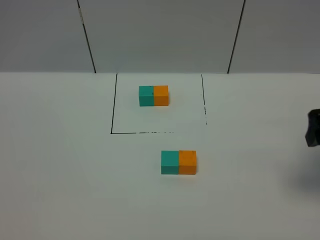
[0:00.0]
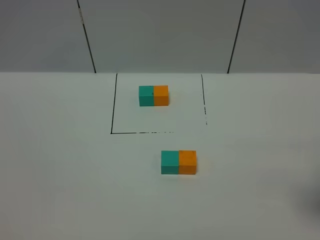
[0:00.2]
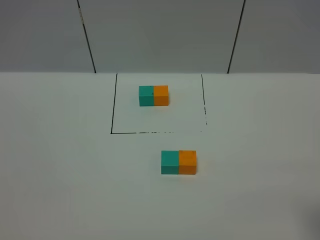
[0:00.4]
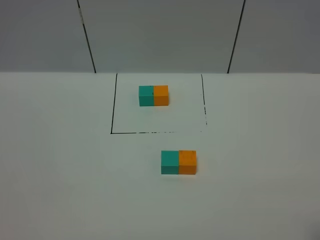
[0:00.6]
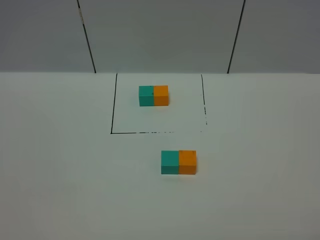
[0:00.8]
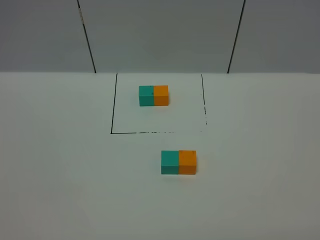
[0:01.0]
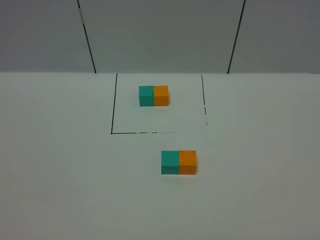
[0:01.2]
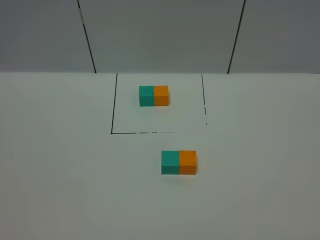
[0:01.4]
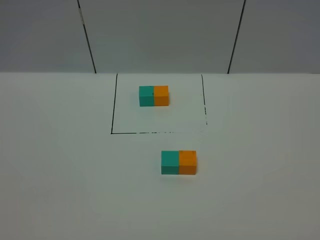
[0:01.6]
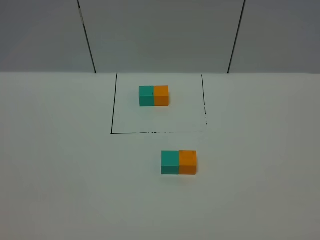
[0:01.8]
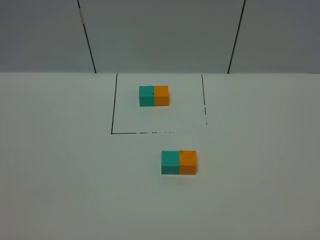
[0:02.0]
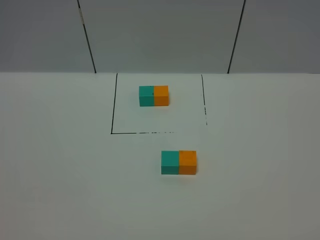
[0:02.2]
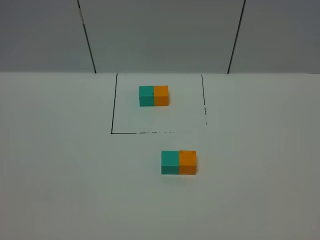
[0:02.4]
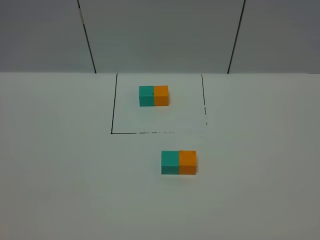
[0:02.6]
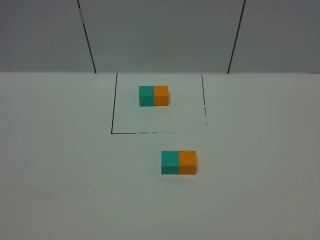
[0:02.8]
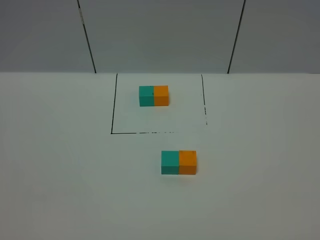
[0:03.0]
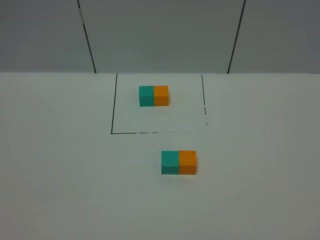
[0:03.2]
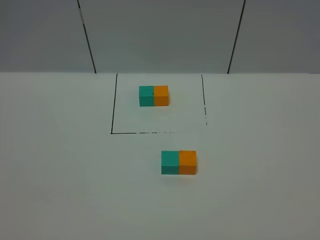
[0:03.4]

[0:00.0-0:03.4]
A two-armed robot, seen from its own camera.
Task of the whole recording: According to the building block template in front, assemble the scattered blocks together.
0:00.0 to 0:01.6: The right gripper goes approximately 25 cm backward.
0:01.6 to 0:03.4: Both grippers stay about where they are.

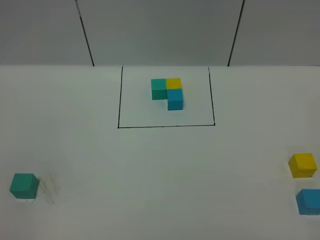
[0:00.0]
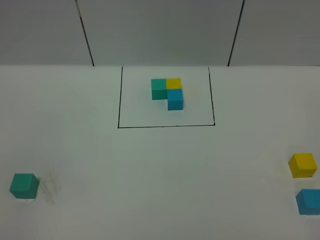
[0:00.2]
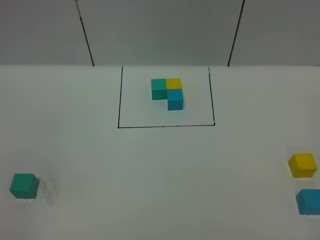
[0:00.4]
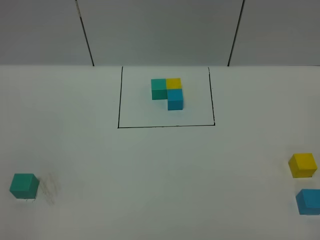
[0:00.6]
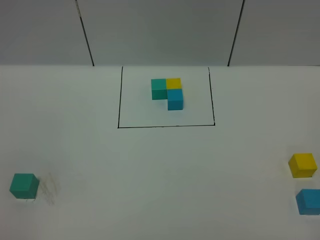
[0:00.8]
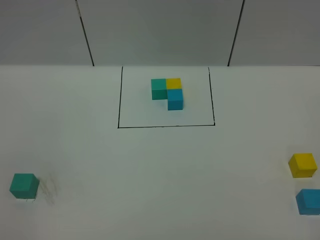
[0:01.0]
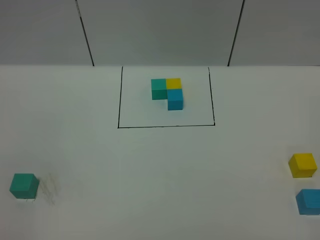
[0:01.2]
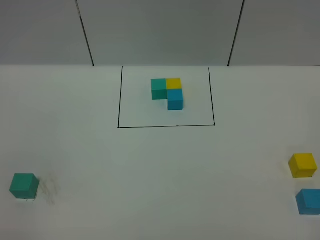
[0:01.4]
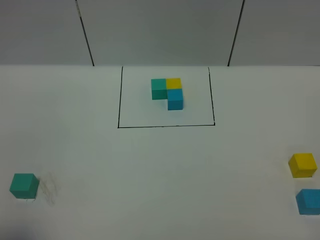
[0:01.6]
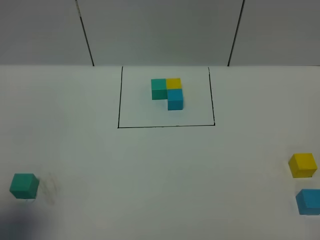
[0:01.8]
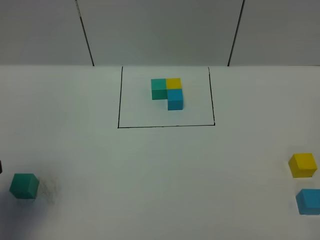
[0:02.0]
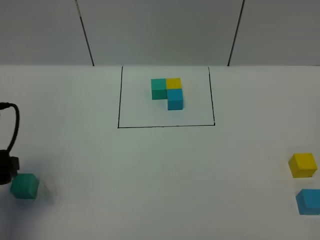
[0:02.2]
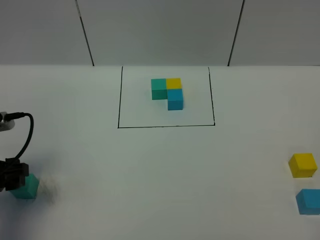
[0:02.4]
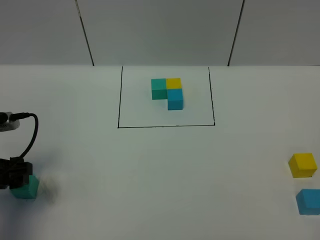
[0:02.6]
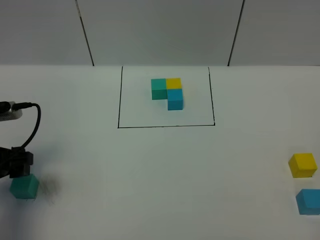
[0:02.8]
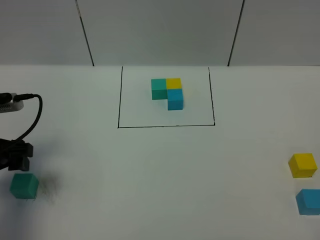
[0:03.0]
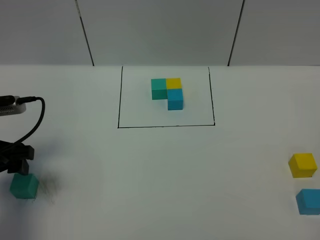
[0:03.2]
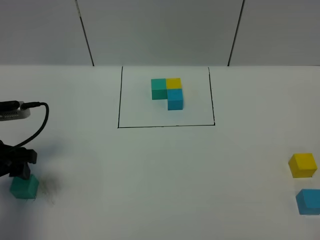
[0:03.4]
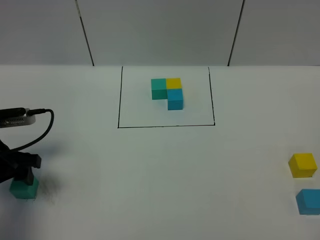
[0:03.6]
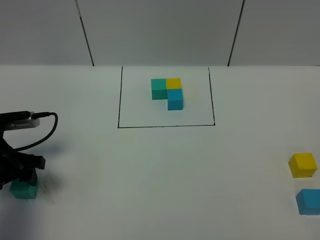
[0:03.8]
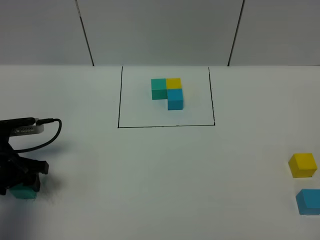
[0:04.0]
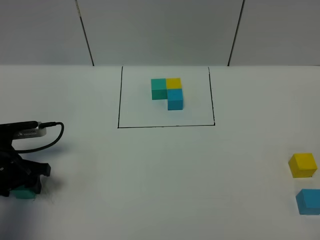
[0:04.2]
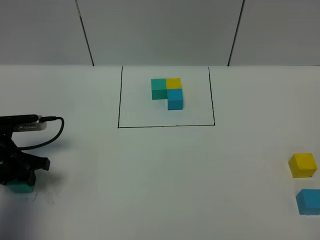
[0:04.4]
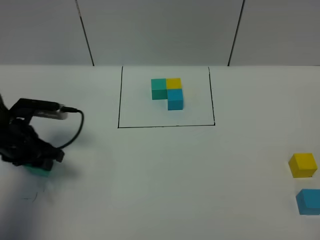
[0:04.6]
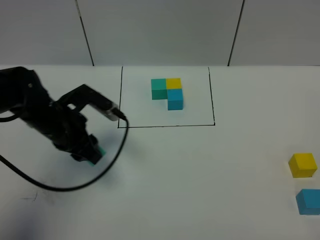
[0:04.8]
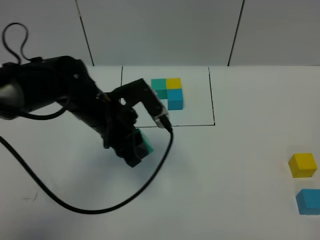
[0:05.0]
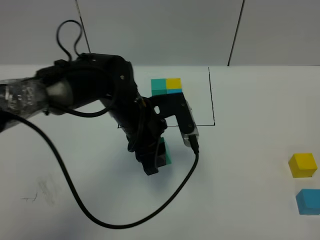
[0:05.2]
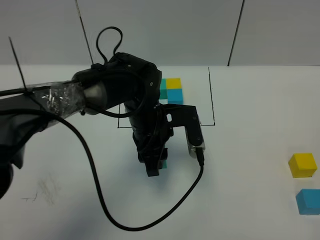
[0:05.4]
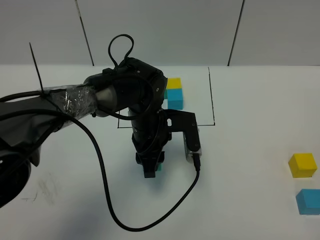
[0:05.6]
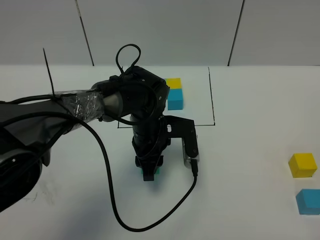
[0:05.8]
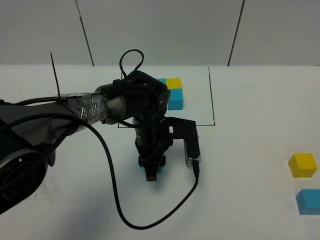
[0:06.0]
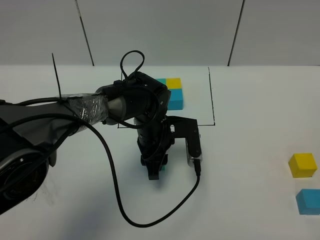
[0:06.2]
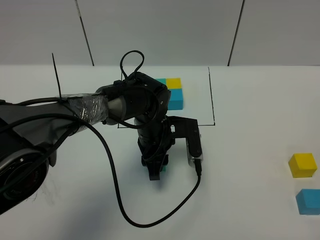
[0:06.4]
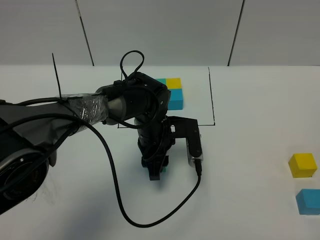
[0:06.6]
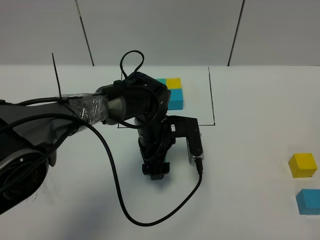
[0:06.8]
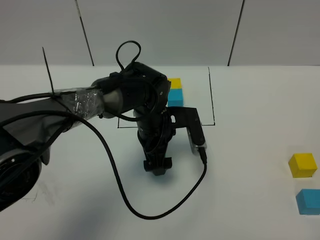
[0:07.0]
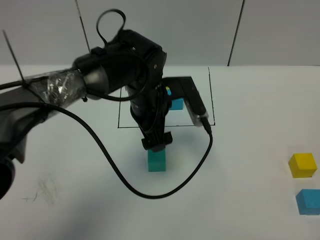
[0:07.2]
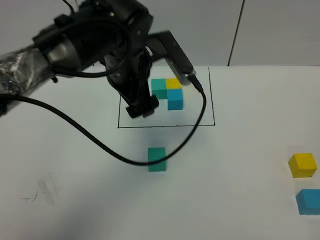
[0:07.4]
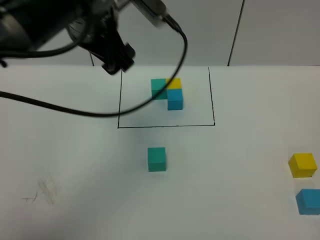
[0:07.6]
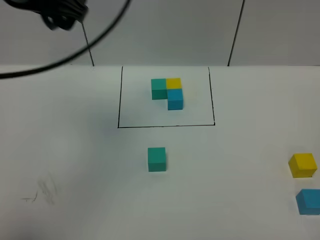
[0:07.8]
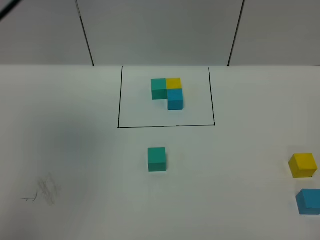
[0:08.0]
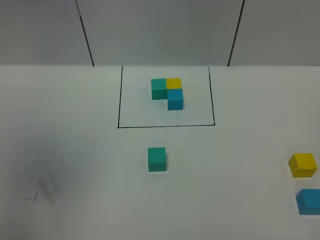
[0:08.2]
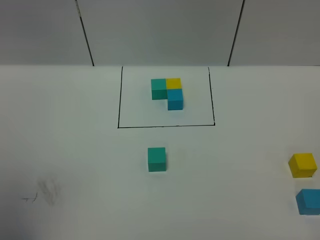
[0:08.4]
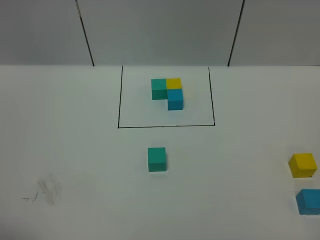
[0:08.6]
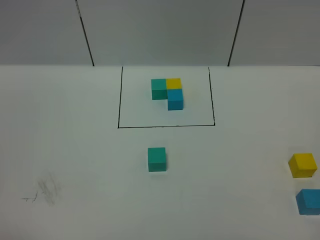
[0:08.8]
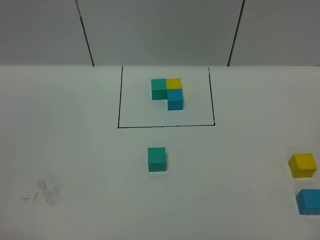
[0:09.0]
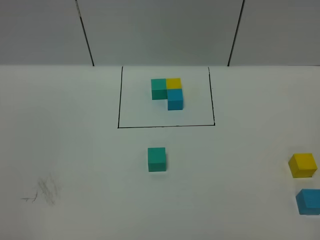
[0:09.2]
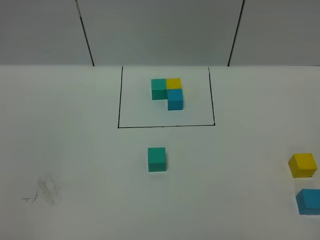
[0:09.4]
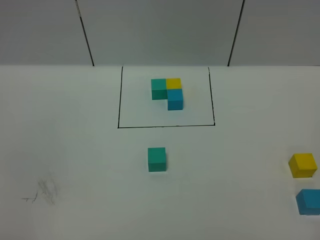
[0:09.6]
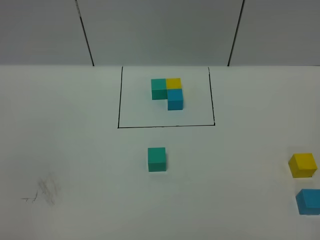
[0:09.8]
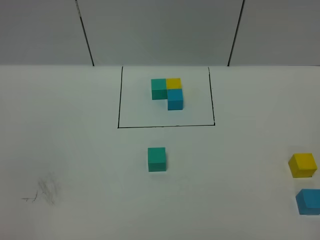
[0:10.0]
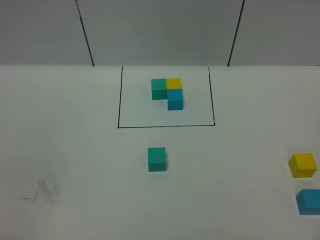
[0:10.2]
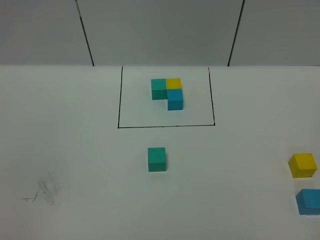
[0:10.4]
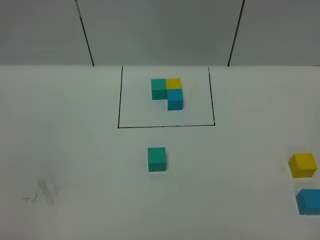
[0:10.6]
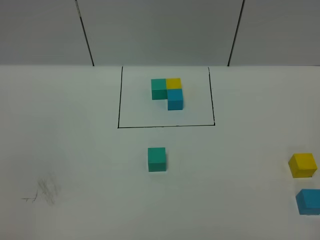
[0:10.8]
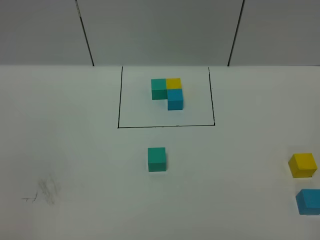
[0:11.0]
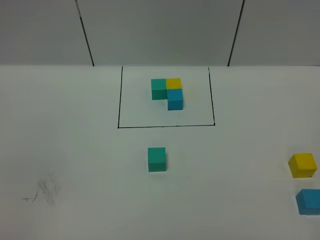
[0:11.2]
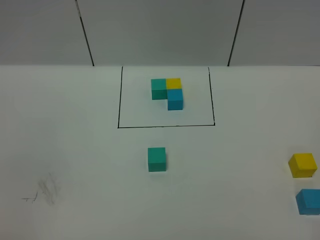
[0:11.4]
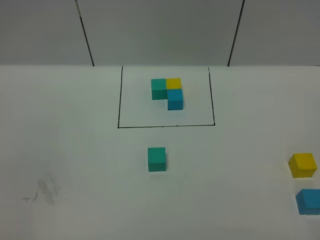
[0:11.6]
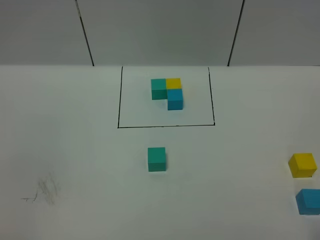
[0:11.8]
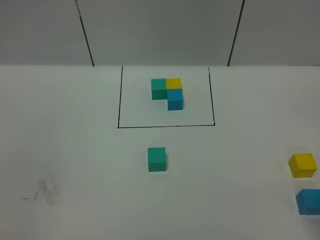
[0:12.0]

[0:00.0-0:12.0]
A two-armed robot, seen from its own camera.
Task of the whole recording: According to the building block template in front, assemble the scattered blocks together.
Step, 0:02.0 to 0:07.0: Put the green cube in the center of the table.
0:01.6 to 0:03.0: The left gripper shifts roughly 20 cm forward and downward.
0:03.0 to 0:04.4: The left gripper goes roughly 10 cm downward, and closes its fingers.
0:04.4 to 0:06.0: The left gripper moves to the right, about 30 cm.
0:06.0 to 0:07.6: The left gripper travels upward by some 25 cm, and opens up.
0:07.6 to 0:09.0: The left gripper moves backward and to the left, some 50 cm, and closes up.

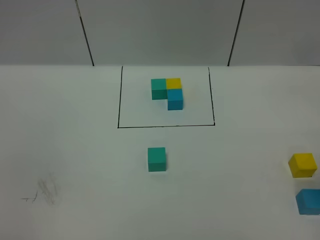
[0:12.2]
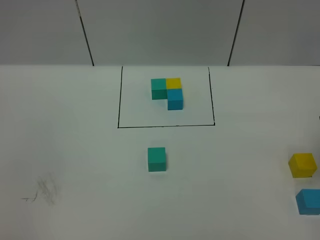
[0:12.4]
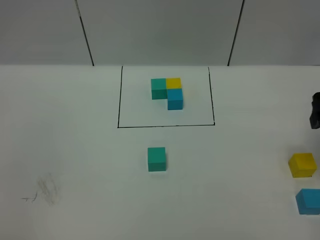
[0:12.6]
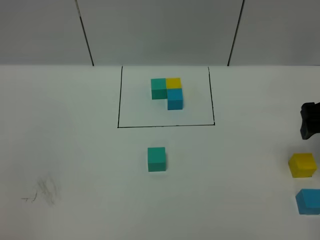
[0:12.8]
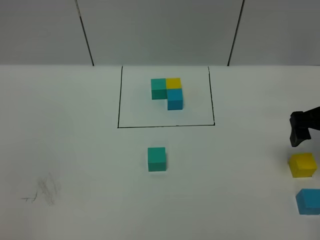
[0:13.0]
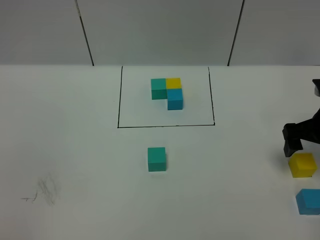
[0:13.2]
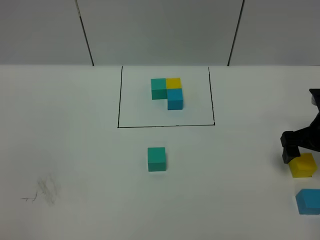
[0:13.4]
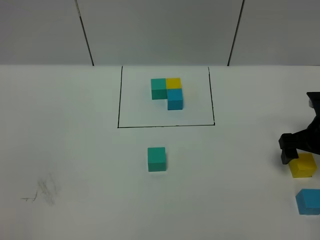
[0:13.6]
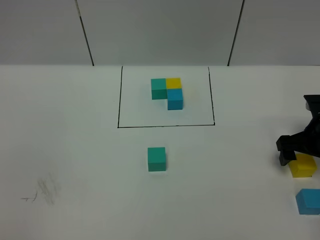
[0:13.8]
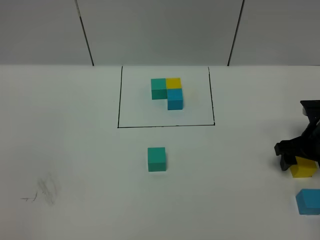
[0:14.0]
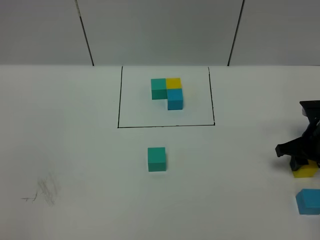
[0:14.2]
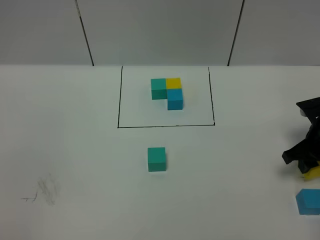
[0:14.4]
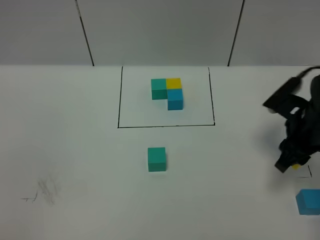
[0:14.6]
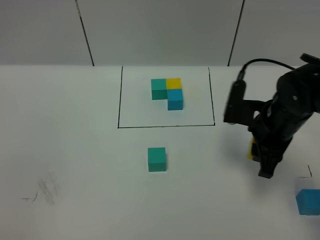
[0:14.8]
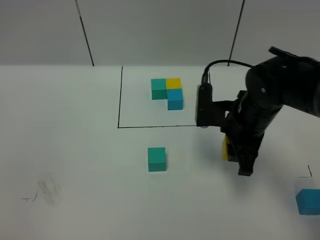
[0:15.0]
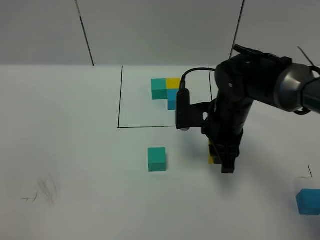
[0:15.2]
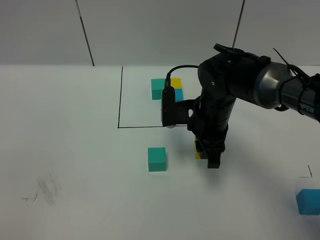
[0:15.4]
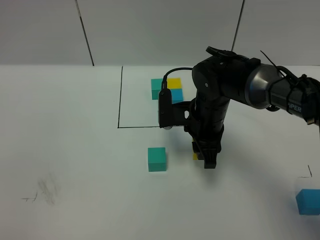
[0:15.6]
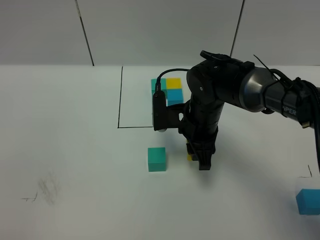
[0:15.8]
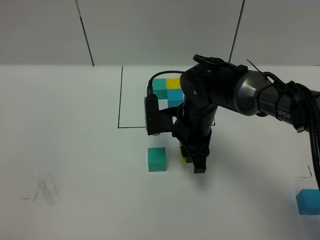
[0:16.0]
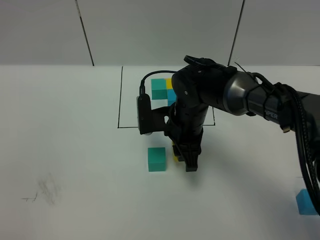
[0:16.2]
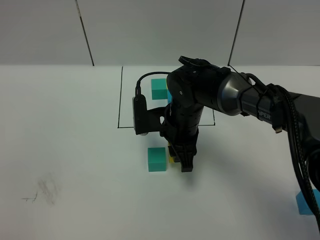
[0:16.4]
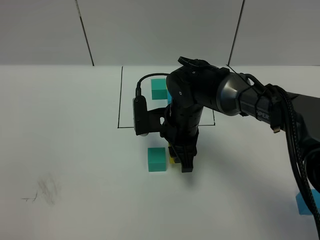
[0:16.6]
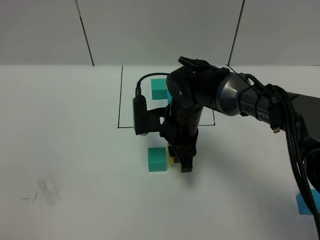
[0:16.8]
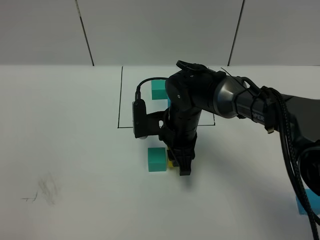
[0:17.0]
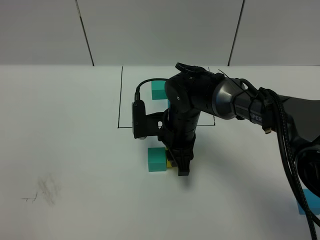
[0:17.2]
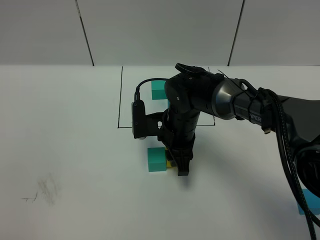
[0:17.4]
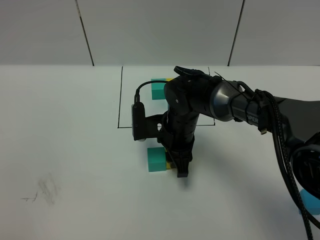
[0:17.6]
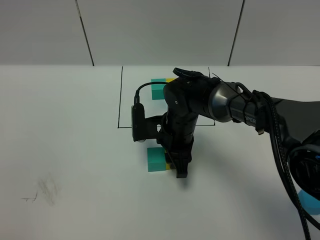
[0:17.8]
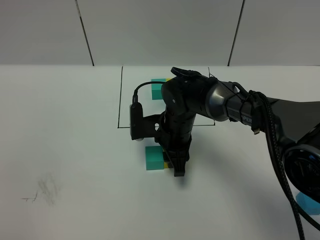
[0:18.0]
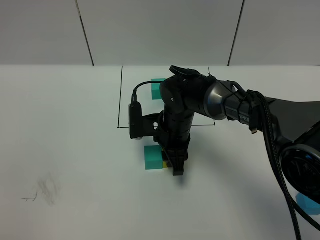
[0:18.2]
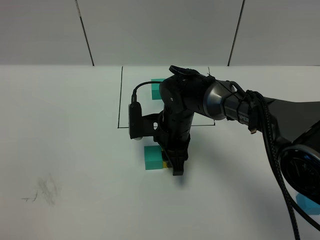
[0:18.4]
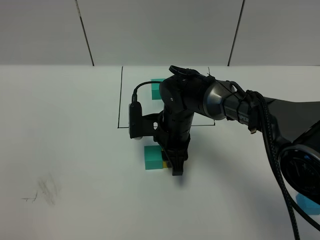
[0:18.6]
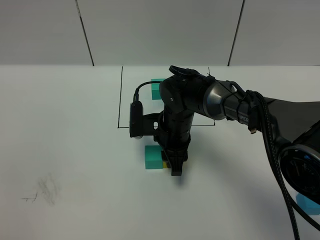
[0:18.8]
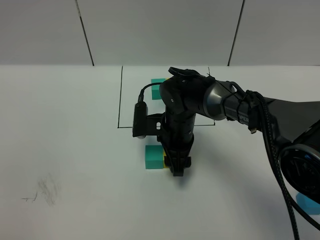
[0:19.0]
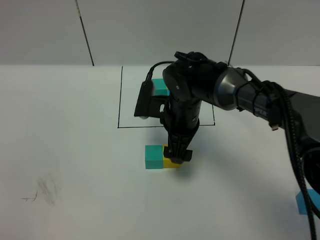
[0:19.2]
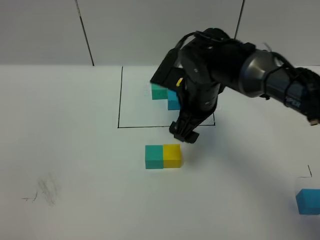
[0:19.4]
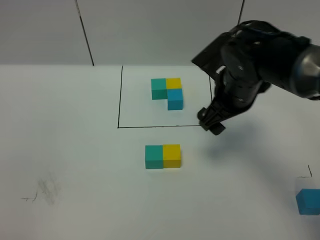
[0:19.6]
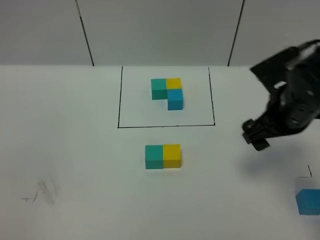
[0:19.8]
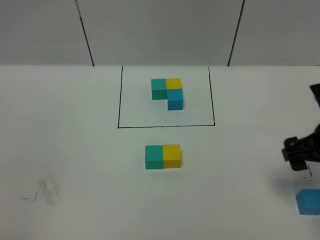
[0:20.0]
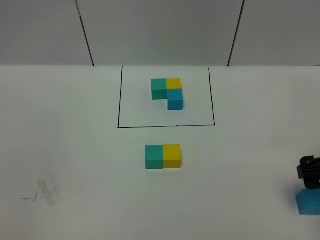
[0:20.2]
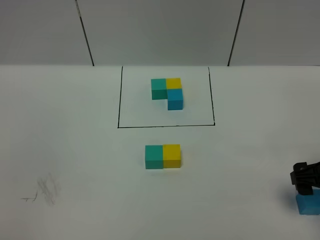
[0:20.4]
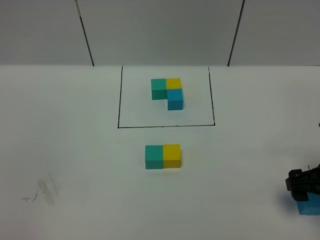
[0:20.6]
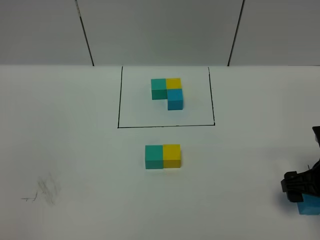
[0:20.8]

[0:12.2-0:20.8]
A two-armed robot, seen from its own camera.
Task of the whole recording: According to the building block template in front, assemble the scattered blocks together.
Step, 0:12.2 to 0:19.0: Put the yellow cube on the right of the green cube.
0:12.2 to 0:13.6: The right gripper goes about 20 cm downward and forward.
0:13.6 to 0:15.0: The right gripper shifts about 15 cm to the left, and closes up.
0:15.0 to 0:16.6: The right gripper is displaced to the left by some 10 cm.
0:16.6 to 0:18.0: The grippers make only small movements.
0:18.0 to 0:19.4: The right gripper heads upward, covering roughly 10 cm, and opens up.
0:19.4 to 0:20.8: The right gripper shifts roughly 25 cm to the right and backward.
